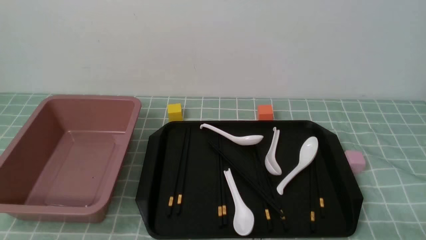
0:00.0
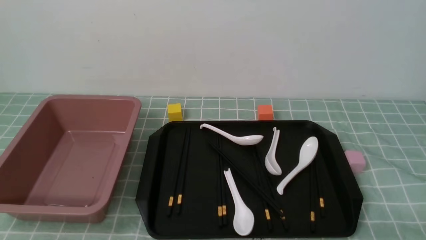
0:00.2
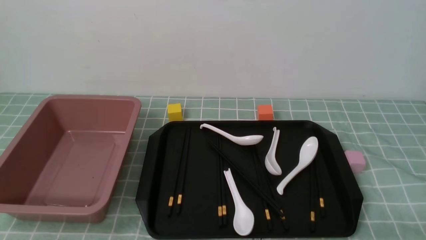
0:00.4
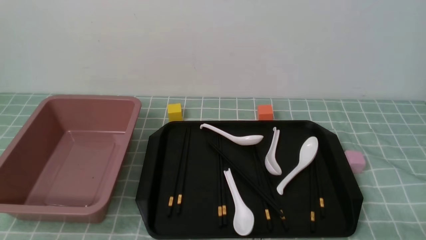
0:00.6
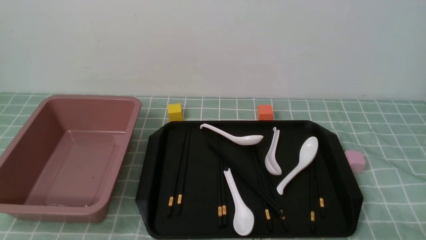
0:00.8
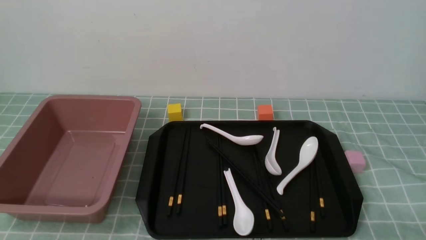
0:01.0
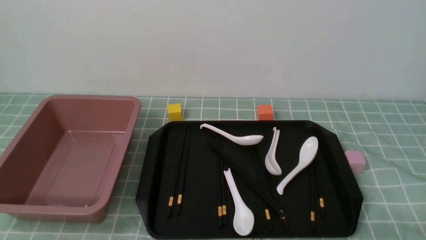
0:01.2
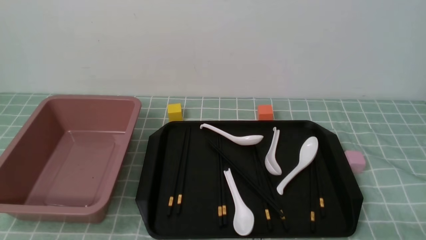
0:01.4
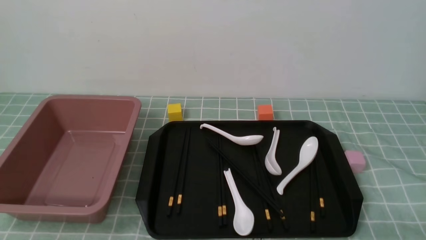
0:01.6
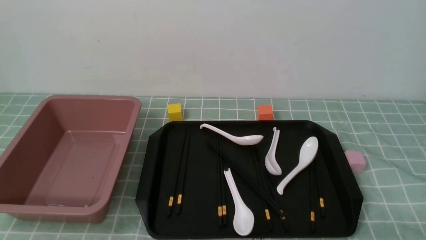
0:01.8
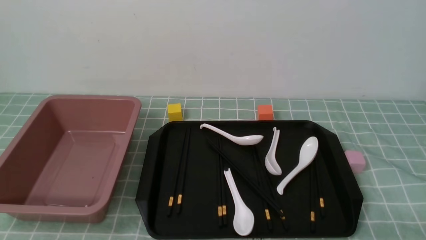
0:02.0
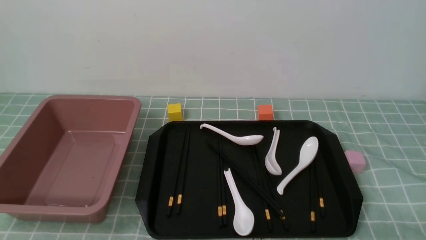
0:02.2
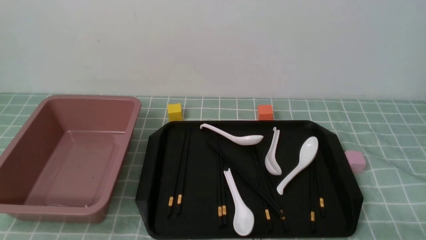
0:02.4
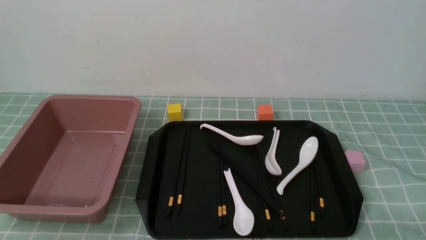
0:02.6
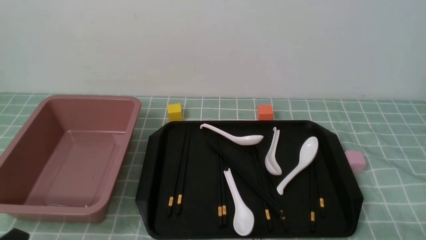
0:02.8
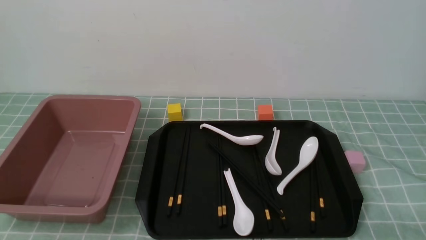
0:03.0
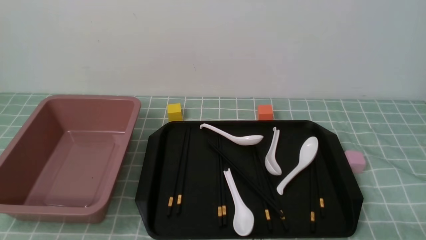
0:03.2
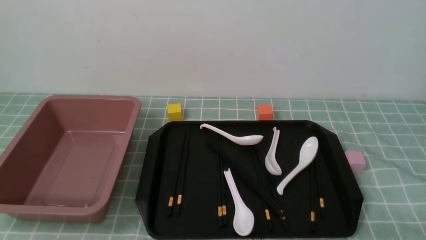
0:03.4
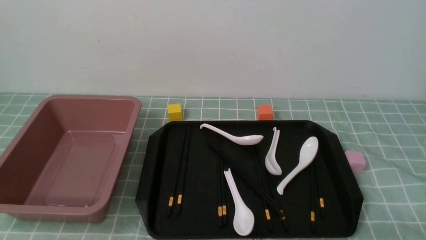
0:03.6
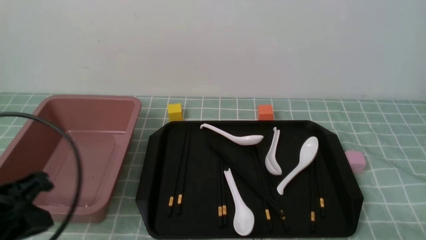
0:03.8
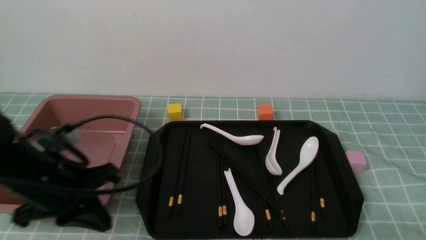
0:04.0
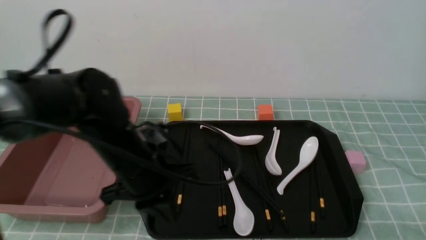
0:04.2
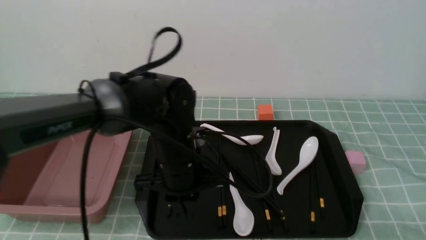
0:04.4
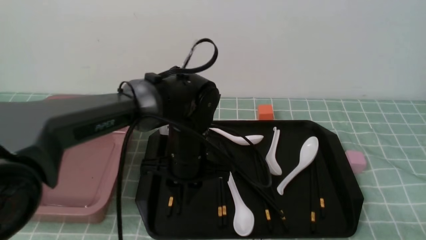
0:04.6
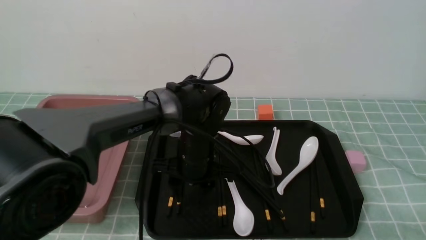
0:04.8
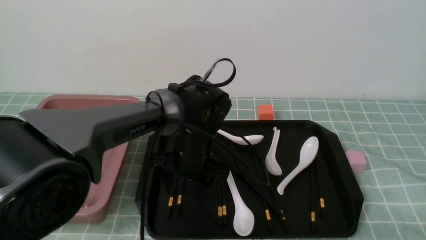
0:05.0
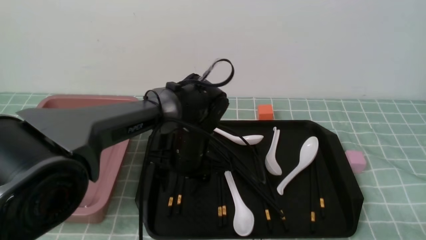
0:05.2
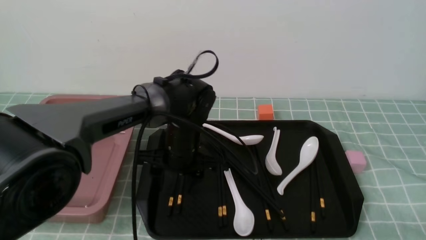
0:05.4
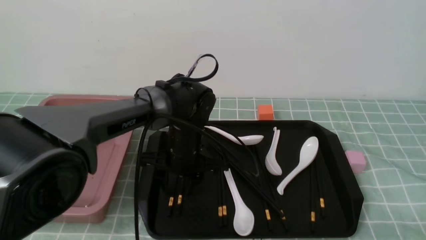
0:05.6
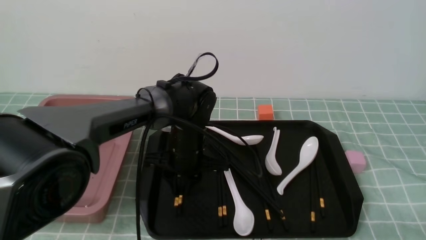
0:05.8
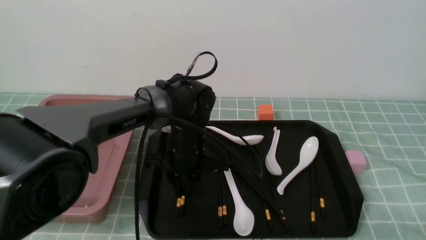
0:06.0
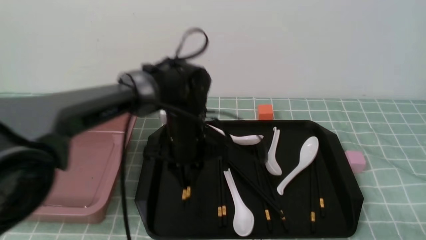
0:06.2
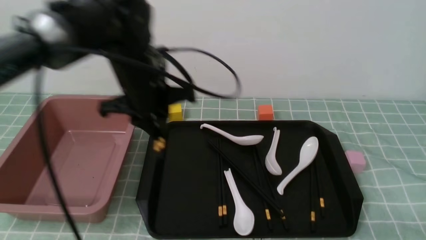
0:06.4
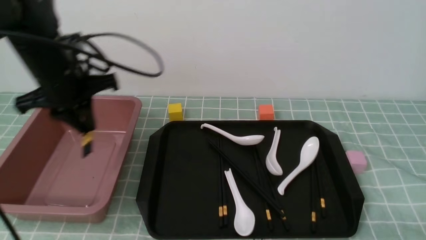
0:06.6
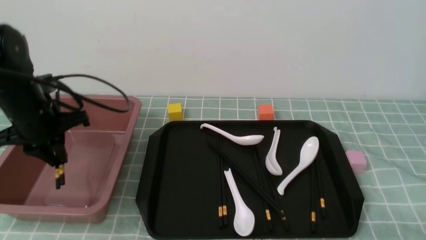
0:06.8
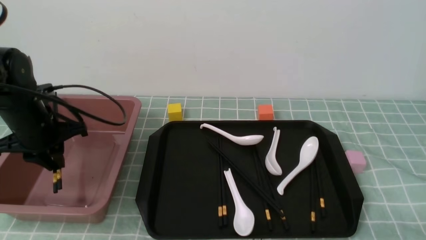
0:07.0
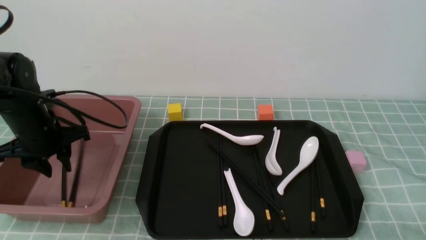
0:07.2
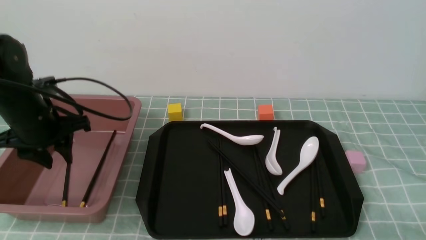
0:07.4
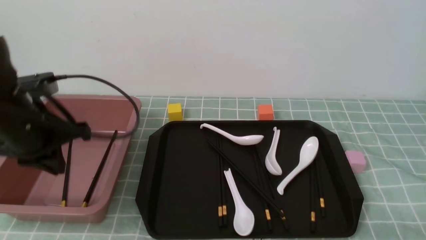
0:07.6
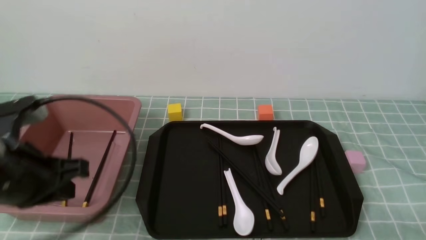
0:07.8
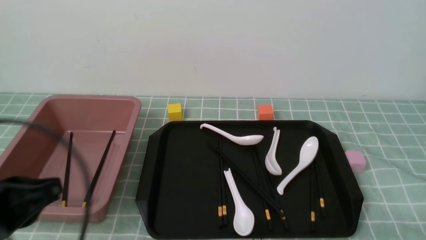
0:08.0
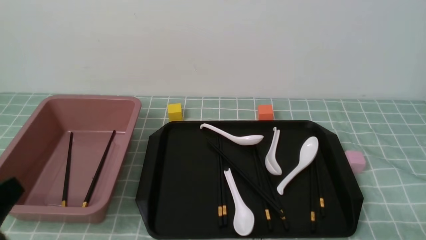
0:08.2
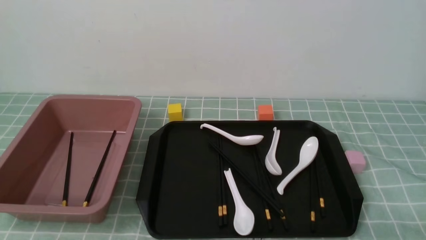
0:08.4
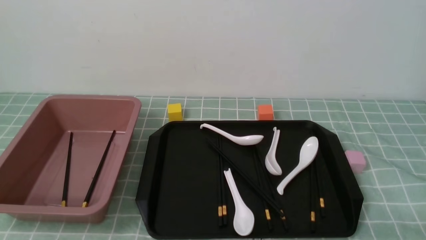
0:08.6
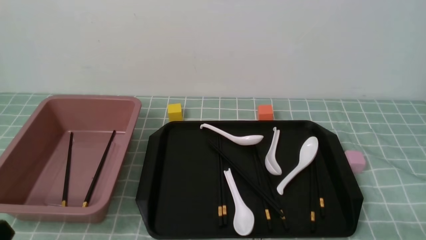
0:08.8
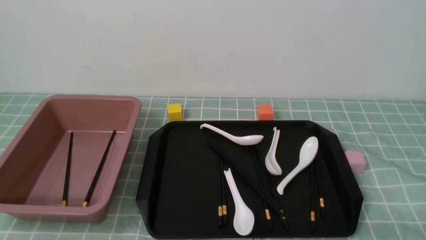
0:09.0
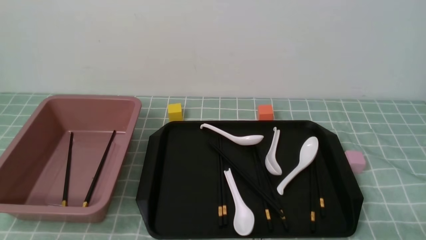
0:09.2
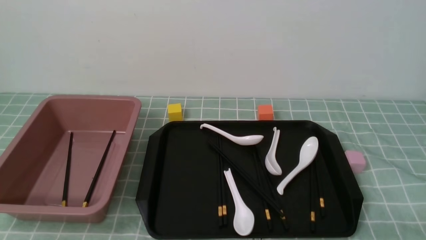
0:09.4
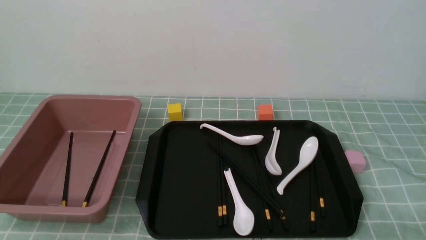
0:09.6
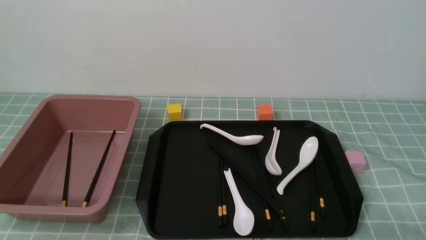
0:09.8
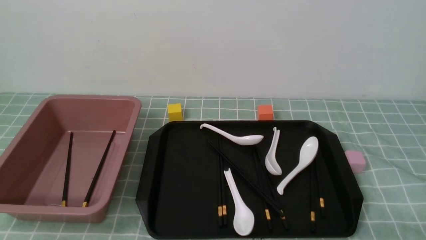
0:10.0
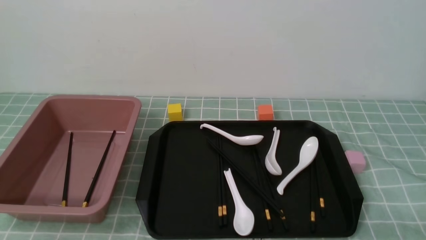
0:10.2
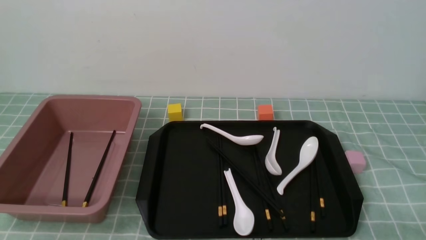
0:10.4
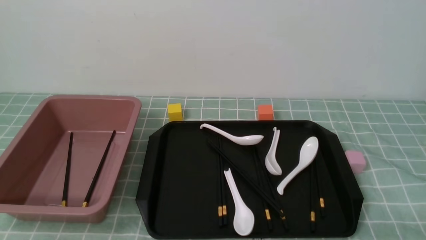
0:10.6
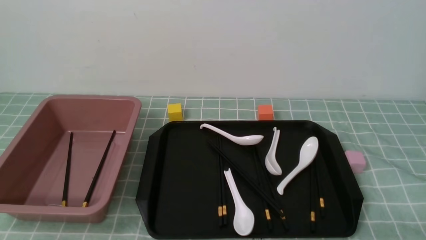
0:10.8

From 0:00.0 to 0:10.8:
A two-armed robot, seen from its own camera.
Step, from 0:00.0 to 0:06.2: use the left arm to grab a pair of chopsticks.
Step, from 0:06.6 to 0:07.6: use the left arm to put the chopsticks into the lunch box.
From 0:03.0 to 0:04.6: The left gripper goes some 35 cm forward and to the right, and closes up.
From 0:04.6 to 0:06.2: The left gripper moves forward, approximately 5 cm, and opens and closes again.
From 0:06.2 to 0:07.8: The left gripper travels to the left, backward and upward by roughly 25 cm.
From 0:07.8 to 0:09.2: The left gripper shifts roughly 25 cm backward and downward.

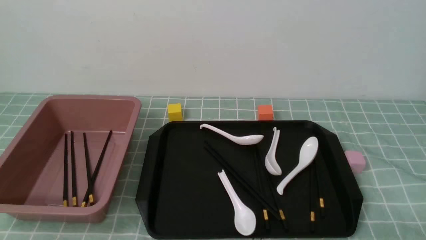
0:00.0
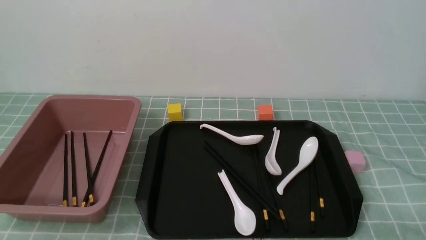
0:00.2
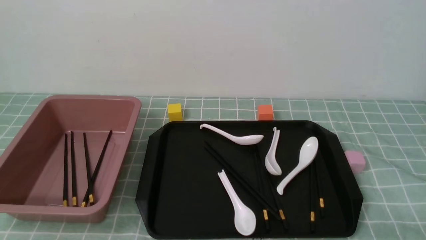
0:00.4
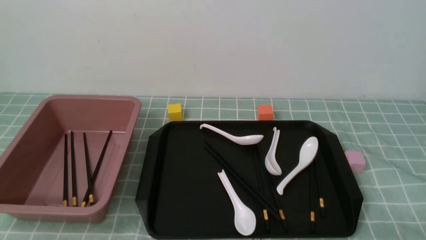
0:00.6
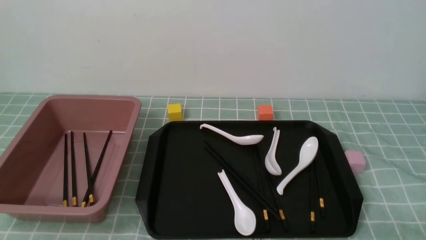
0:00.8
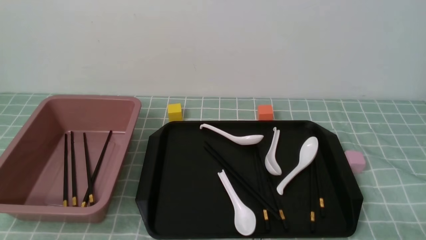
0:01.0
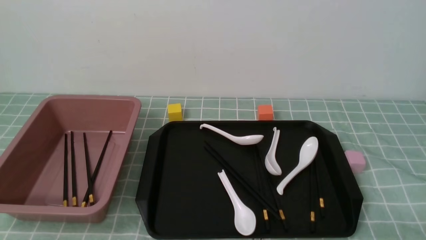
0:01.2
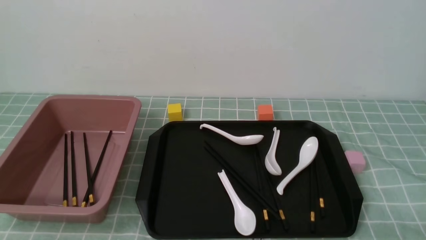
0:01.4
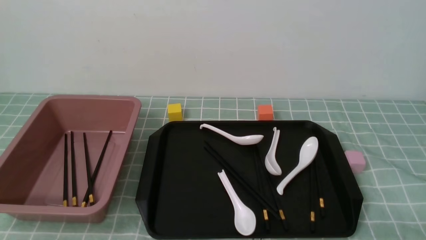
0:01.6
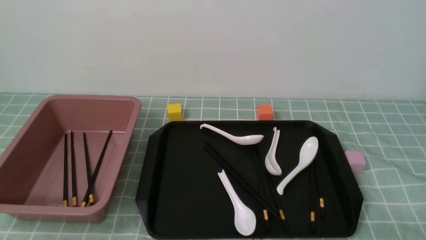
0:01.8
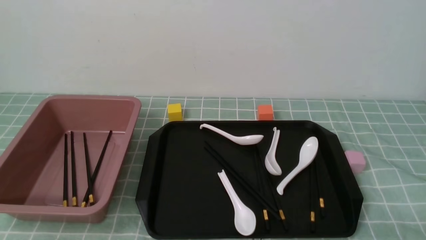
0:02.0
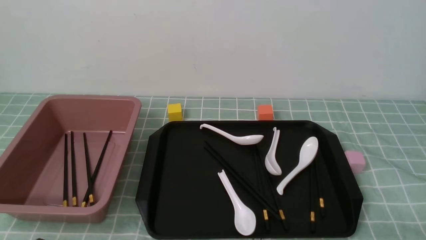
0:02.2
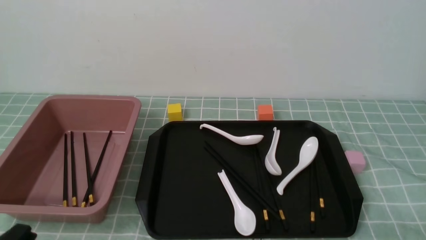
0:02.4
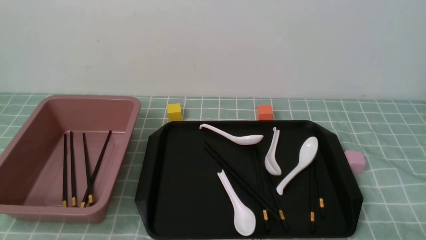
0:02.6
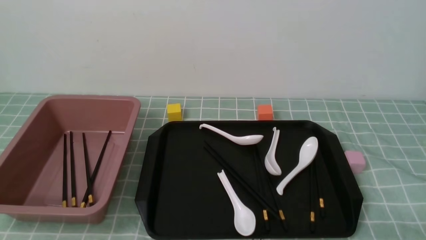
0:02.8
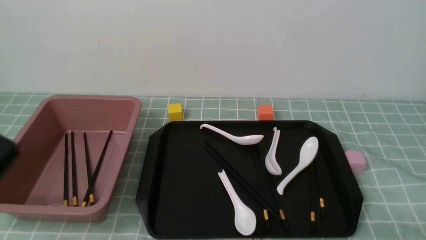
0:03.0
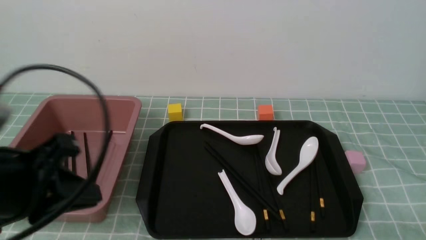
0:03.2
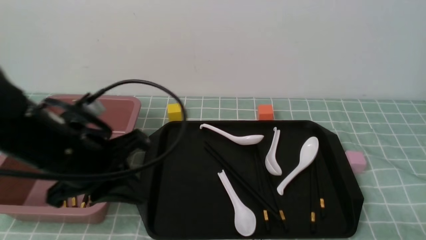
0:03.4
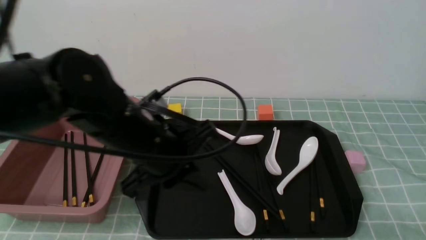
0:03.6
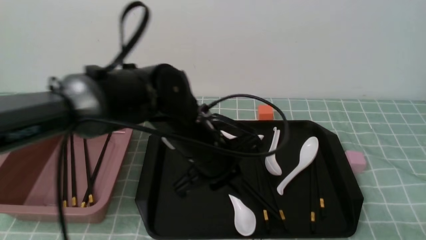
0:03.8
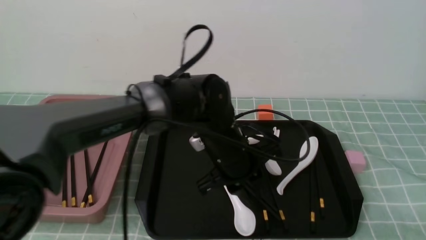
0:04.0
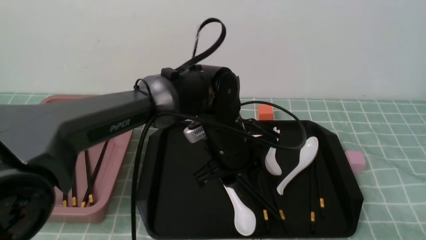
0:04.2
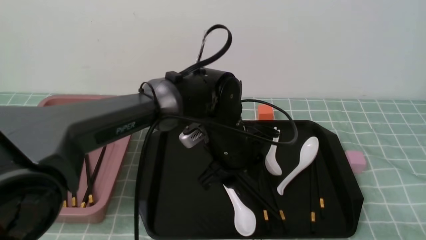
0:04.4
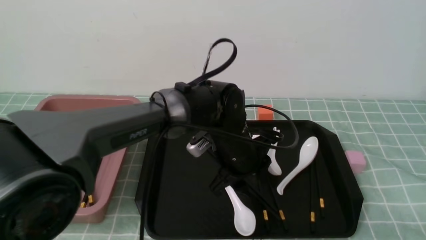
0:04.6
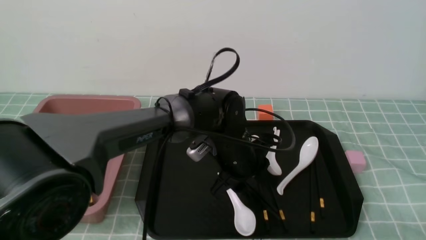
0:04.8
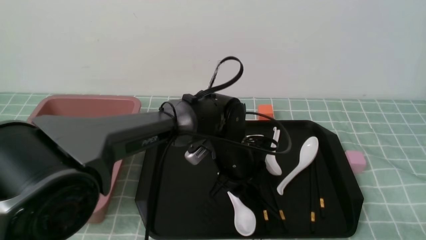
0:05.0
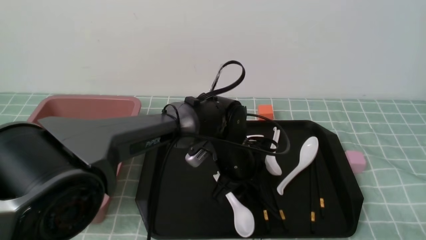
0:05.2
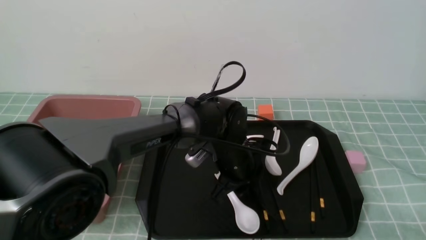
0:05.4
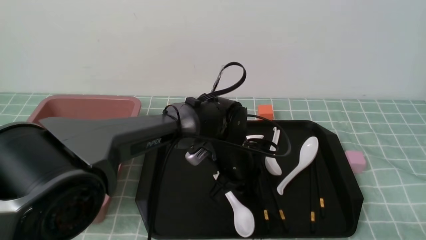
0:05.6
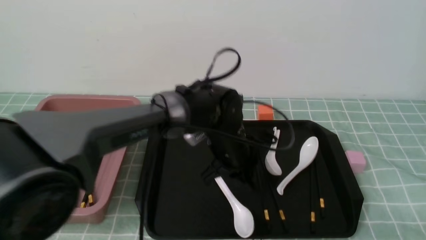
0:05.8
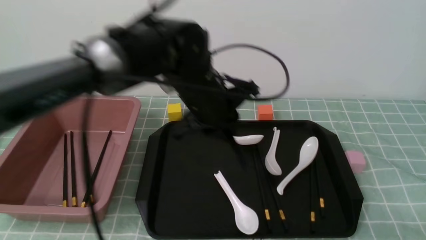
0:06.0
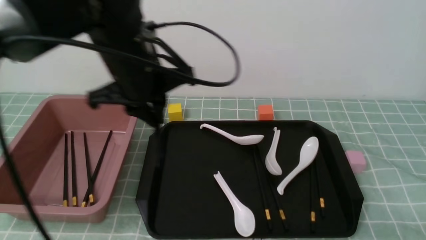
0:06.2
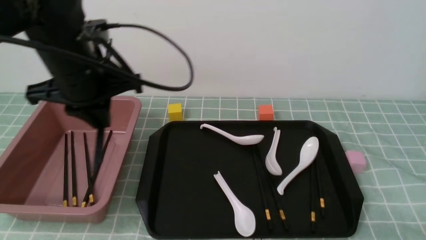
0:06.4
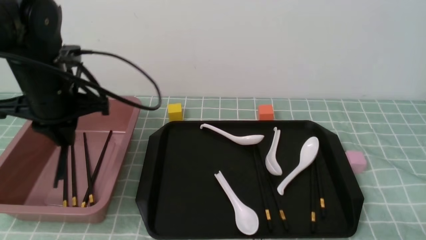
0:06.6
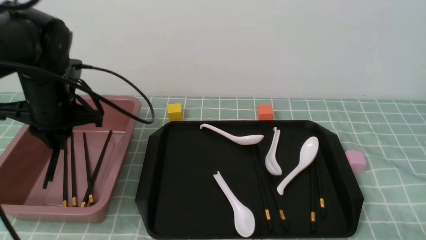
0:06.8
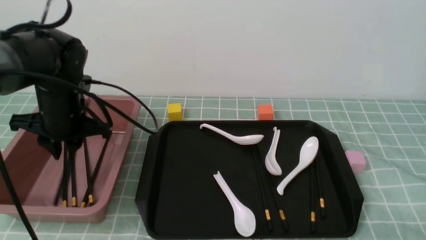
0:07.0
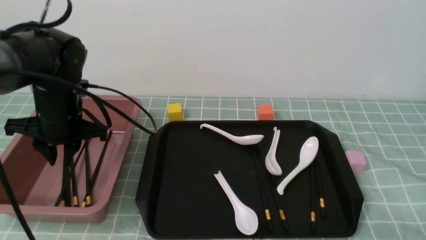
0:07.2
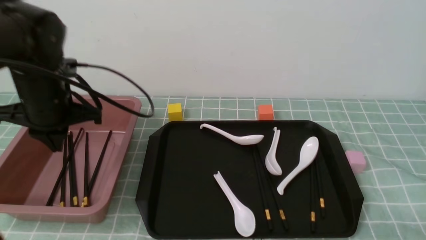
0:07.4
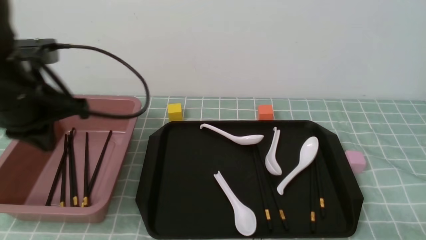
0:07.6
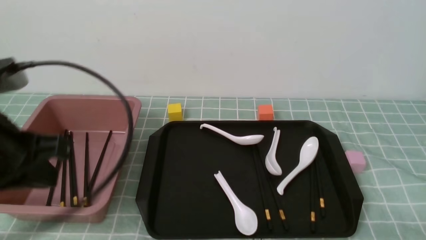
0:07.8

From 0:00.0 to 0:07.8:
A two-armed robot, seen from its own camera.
Step, from 0:00.0 to 0:06.0: use the left arm to grab a pair of chopsticks.
Step, from 0:06.2 to 0:07.4: use the left arm to put the chopsticks into the lunch box.
From 0:01.6 to 0:03.2: The left gripper goes some 15 cm upward and forward.
From 0:03.2 to 0:04.6: The left gripper shifts approximately 35 cm to the right, forward and downward, and opens up.
From 0:04.6 to 0:06.2: The left gripper travels upward and to the left by approximately 15 cm, and closes up.
From 0:06.2 to 0:07.8: The left gripper heads to the left and backward, covering roughly 20 cm.
